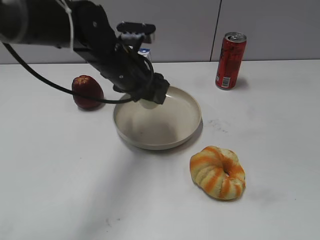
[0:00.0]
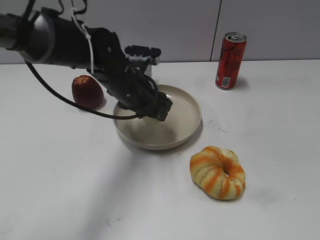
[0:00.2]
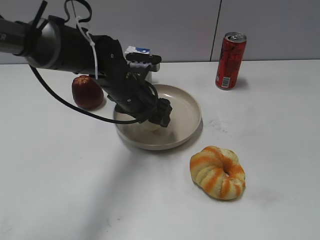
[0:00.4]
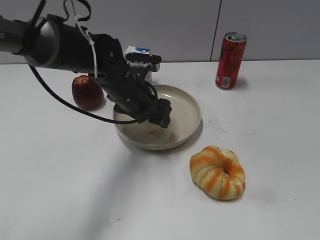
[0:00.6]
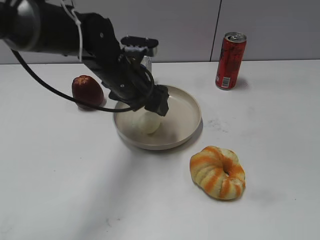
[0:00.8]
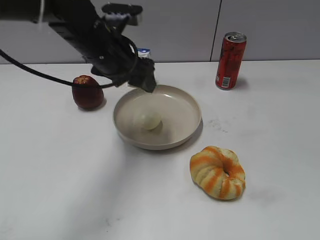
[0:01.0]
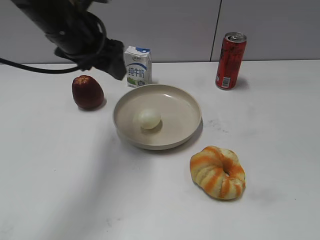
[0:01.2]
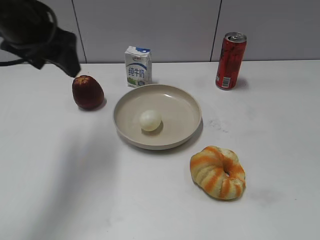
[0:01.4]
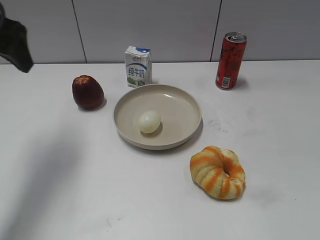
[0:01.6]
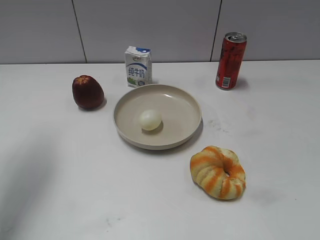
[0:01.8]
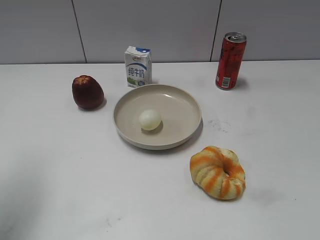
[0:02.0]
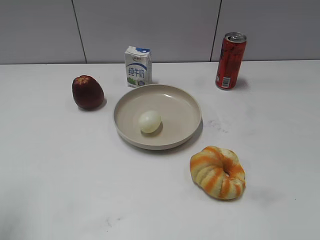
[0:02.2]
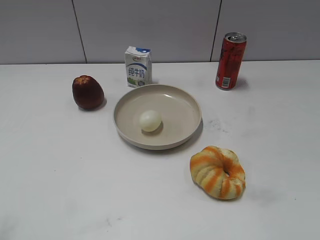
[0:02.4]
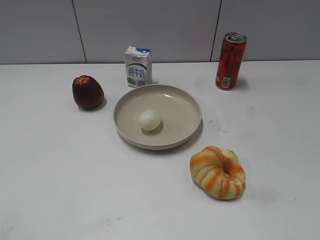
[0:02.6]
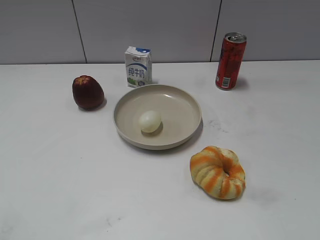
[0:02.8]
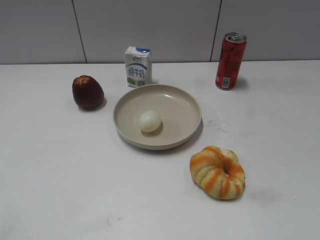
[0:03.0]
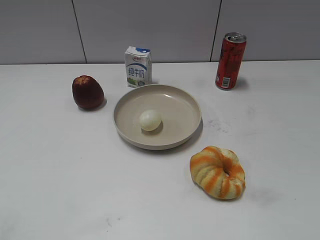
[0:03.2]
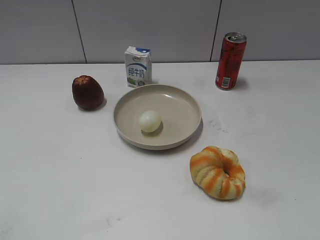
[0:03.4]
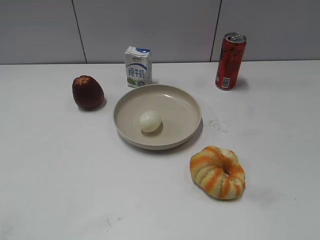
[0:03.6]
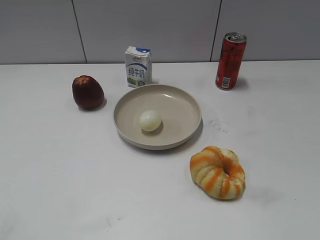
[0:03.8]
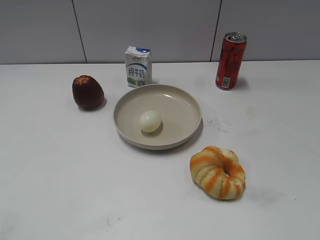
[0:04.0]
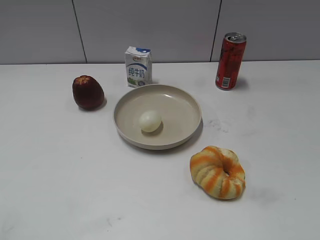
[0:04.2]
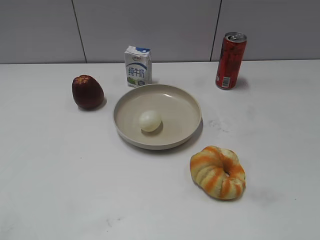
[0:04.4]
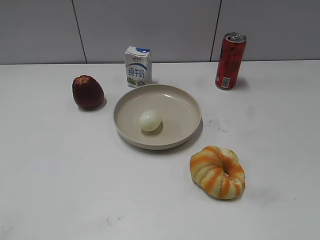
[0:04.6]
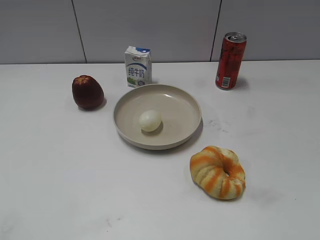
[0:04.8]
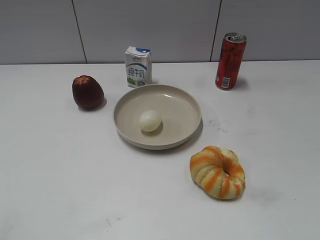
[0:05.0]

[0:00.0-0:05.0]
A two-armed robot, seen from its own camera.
0:00.0 to 0:01.6: The left gripper moves to the left and upward, about 20 cm, and opens.
0:01.6 to 0:03.4: The left gripper is displaced backward by roughly 30 cm.
